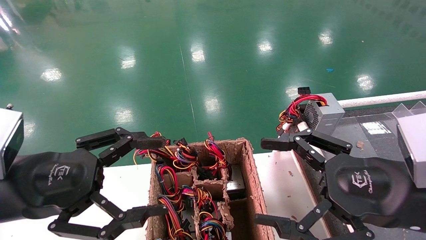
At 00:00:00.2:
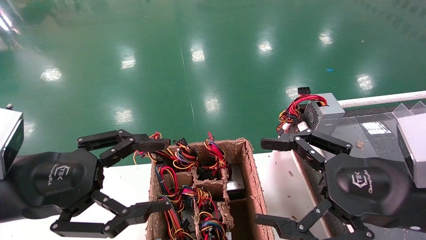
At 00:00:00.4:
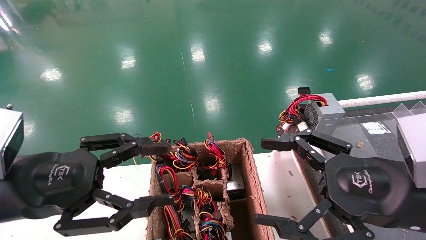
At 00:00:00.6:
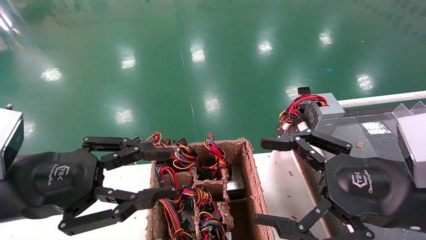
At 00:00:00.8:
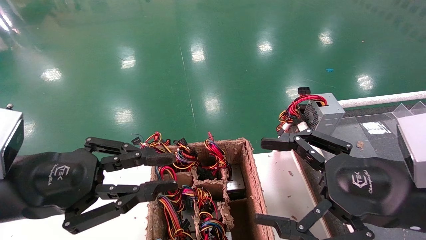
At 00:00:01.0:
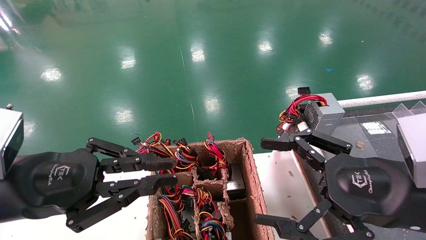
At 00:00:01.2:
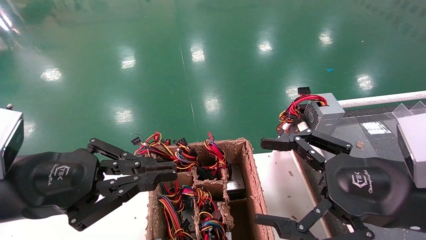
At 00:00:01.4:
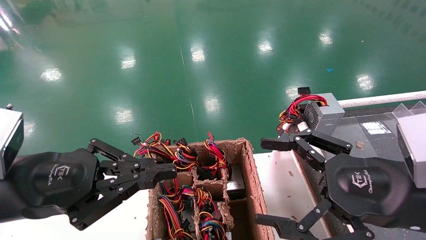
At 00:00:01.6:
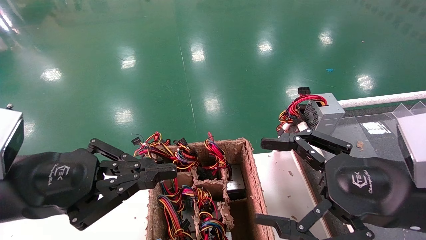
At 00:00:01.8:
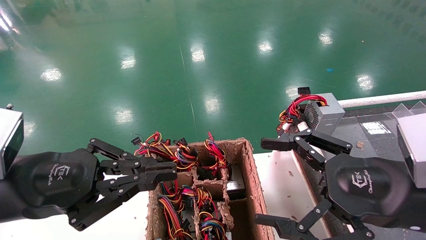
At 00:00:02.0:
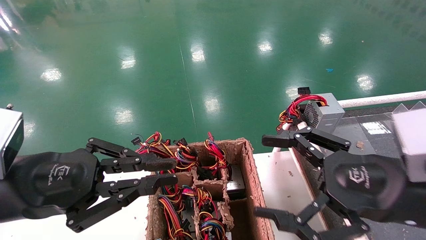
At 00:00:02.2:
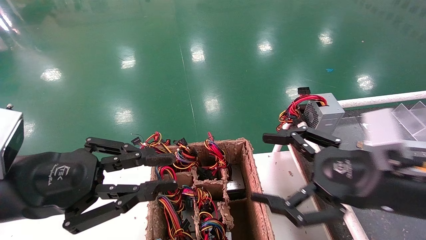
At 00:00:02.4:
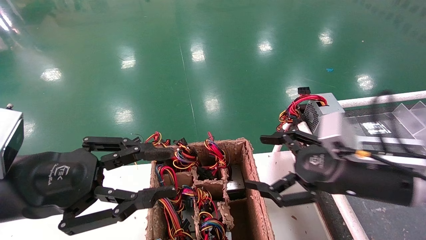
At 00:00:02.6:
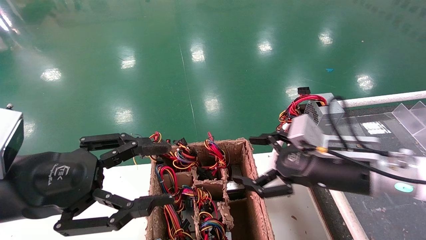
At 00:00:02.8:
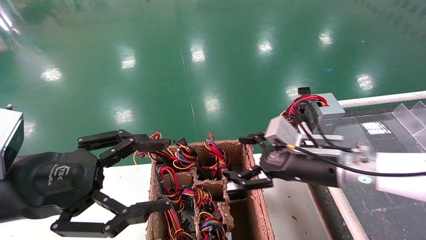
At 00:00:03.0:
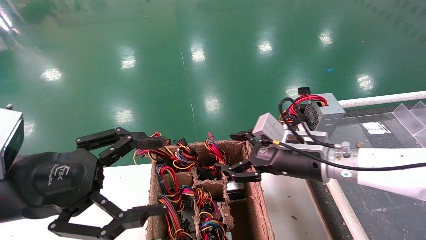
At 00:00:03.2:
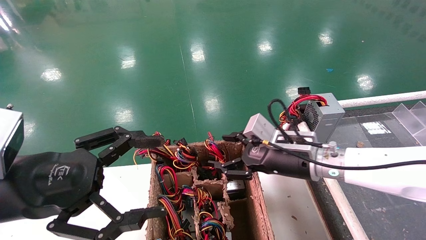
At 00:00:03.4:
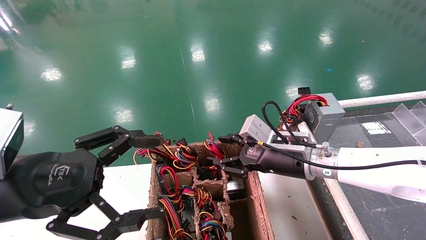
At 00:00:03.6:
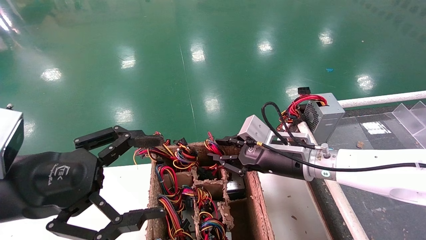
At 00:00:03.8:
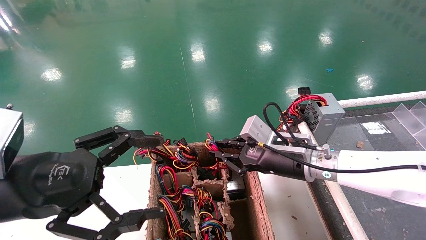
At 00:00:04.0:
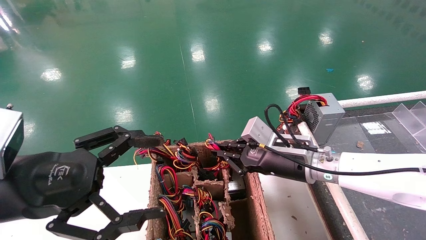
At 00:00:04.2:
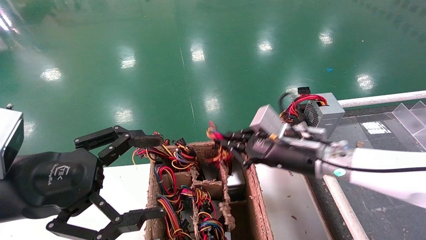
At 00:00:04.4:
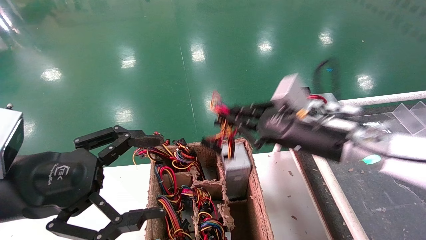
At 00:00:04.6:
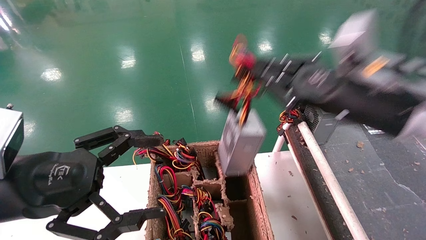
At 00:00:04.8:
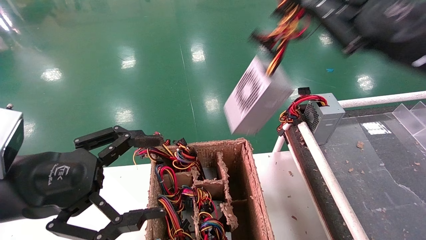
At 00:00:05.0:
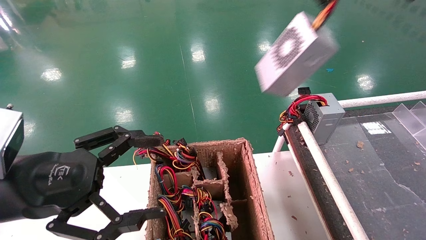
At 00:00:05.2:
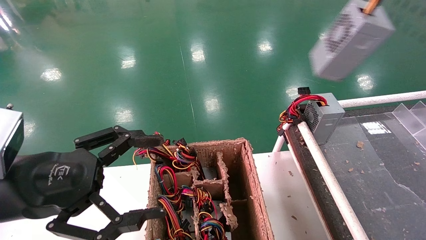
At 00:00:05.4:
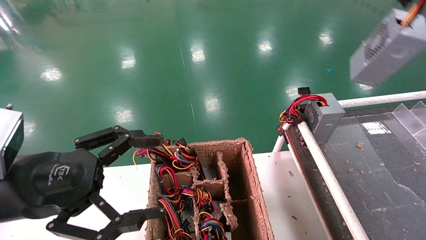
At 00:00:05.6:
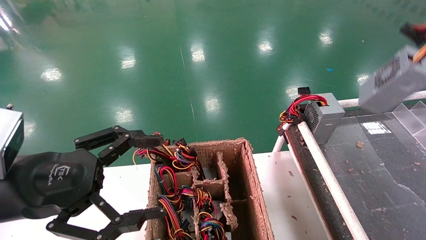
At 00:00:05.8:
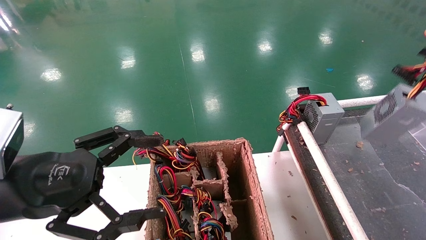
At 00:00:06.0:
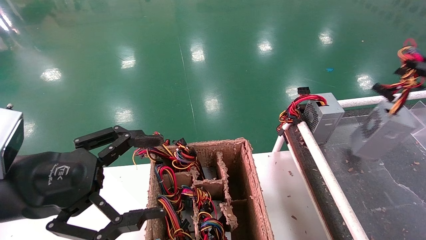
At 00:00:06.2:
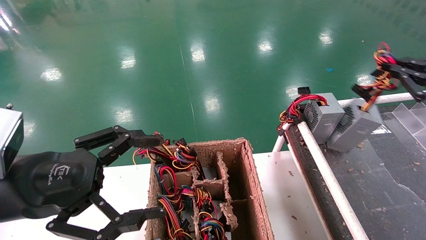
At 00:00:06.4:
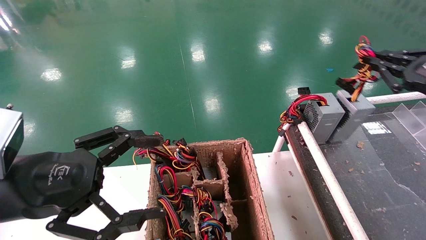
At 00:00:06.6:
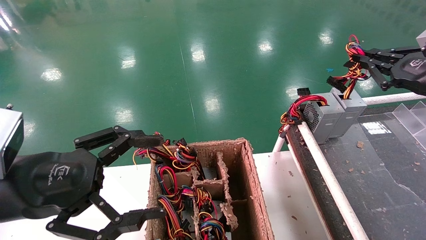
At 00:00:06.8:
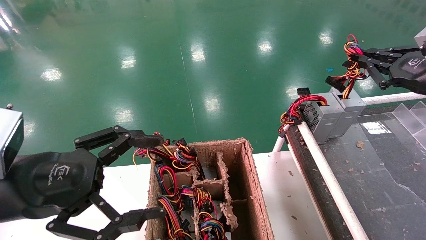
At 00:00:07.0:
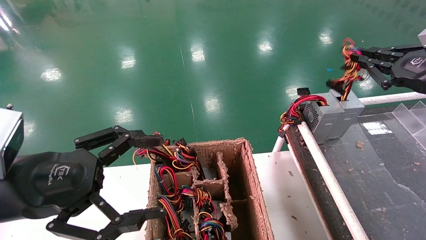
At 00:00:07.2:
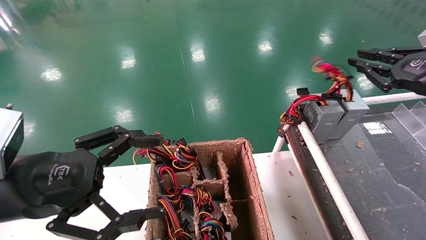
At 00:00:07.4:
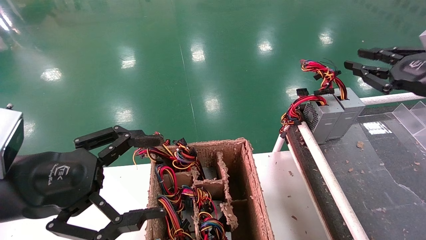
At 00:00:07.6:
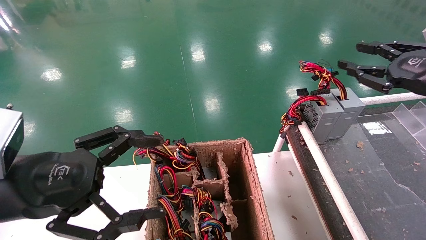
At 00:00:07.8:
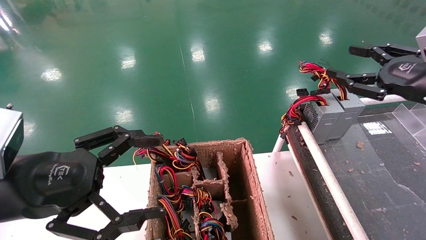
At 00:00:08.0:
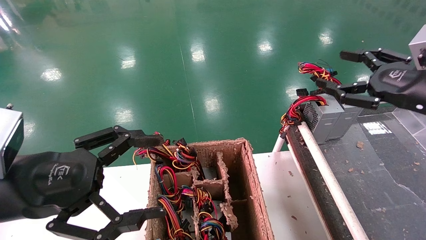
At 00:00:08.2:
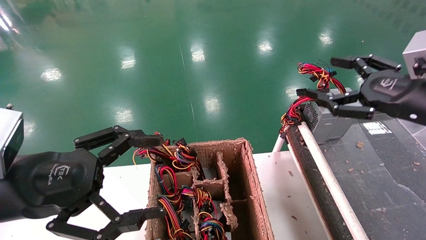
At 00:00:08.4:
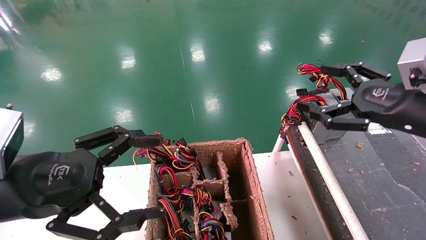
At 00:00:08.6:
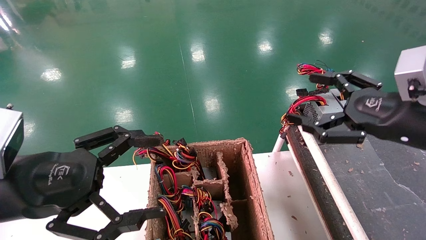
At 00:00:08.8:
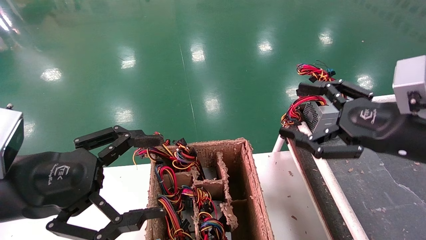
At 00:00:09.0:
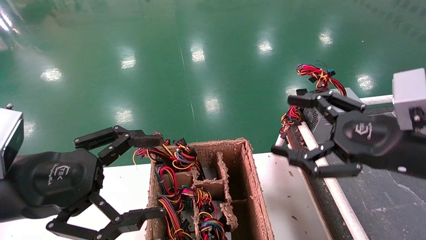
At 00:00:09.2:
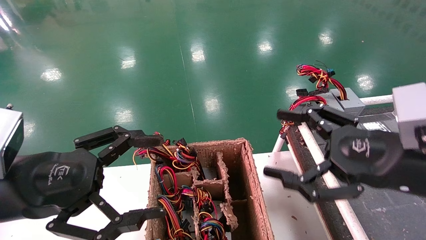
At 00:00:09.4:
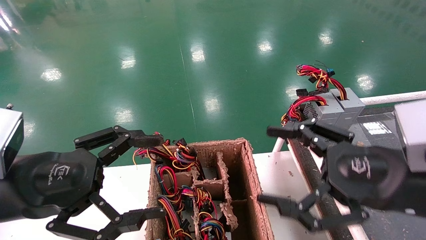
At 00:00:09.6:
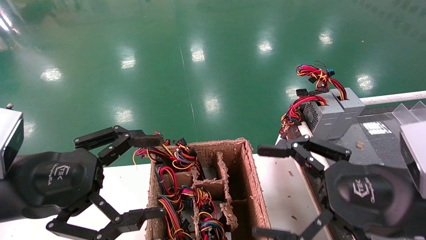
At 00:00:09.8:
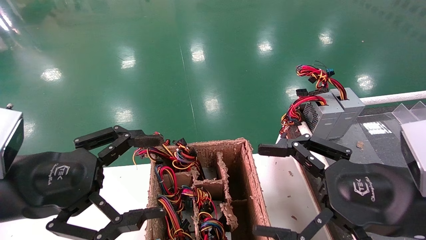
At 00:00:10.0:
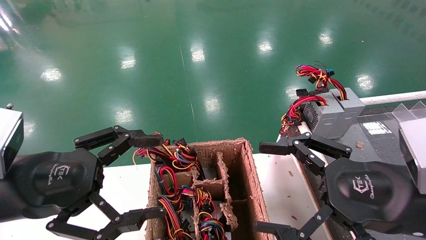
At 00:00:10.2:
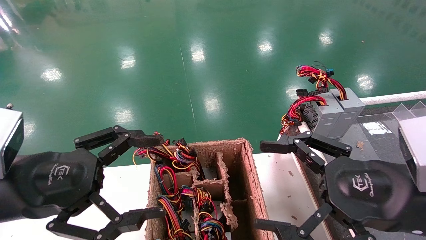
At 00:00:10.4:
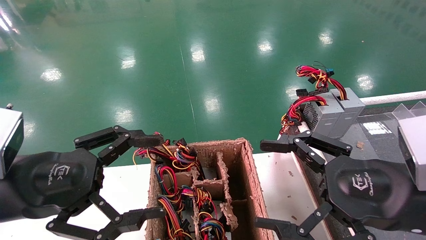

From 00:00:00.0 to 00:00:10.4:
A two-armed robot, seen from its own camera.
Step, from 00:00:02.2 to 00:00:04.0: Grab and lift the power supply from the large box.
Step, from 00:00:04.2 to 00:00:07.0: Place the power supply on the operating table.
From 00:00:00.0 to 00:00:01.4: The left gripper closes.
From 00:00:01.4 to 00:00:03.0: The left gripper opens. The right gripper goes roughly 20 cm forward and to the left.
From 00:00:03.0 to 00:00:04.4: The right gripper moves upward, some 10 cm, and closes.
From 00:00:04.4 to 00:00:06.0: The right gripper shifts about 25 cm to the right.
From 00:00:06.0 to 00:00:07.4: The right gripper heads to the left, covering some 5 cm.
From 00:00:07.4 to 00:00:09.0: The right gripper moves to the left, backward and downward, roughly 15 cm, and opens.
From 00:00:09.0 to 00:00:10.4: The right gripper ends up approximately 5 cm from where it was.
